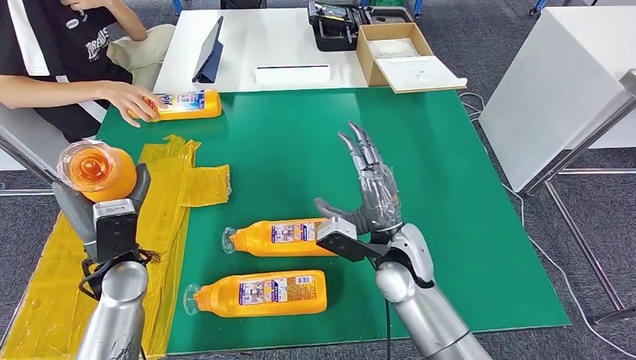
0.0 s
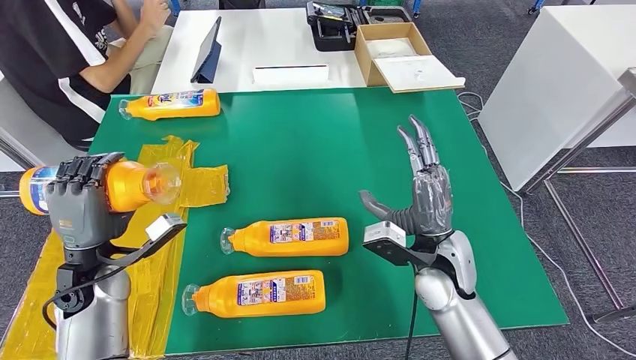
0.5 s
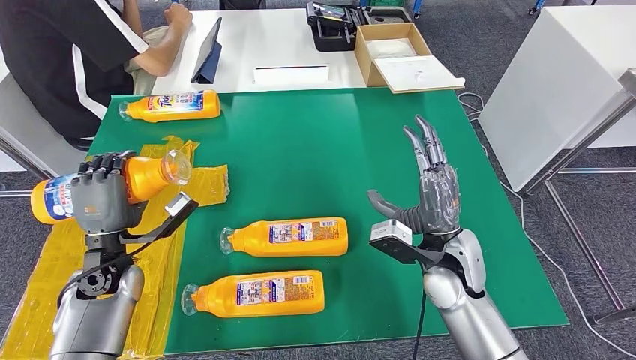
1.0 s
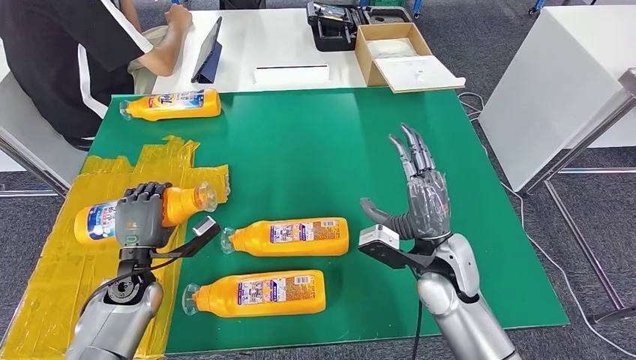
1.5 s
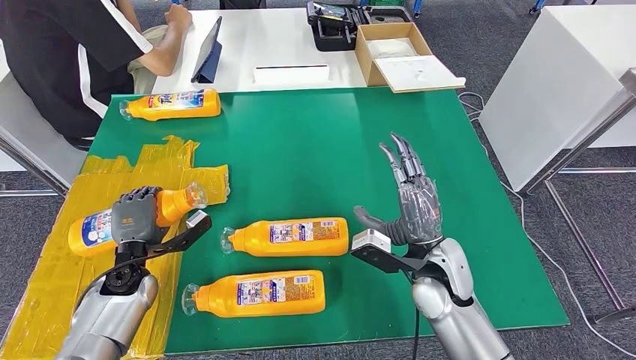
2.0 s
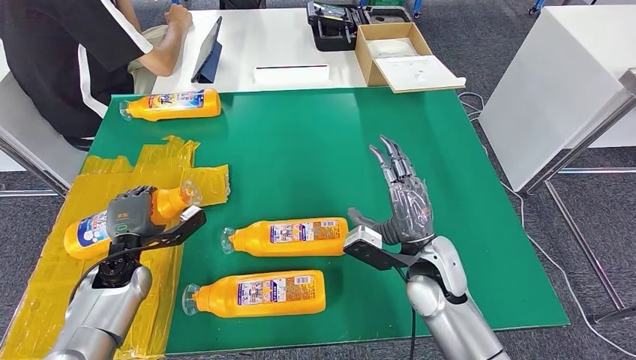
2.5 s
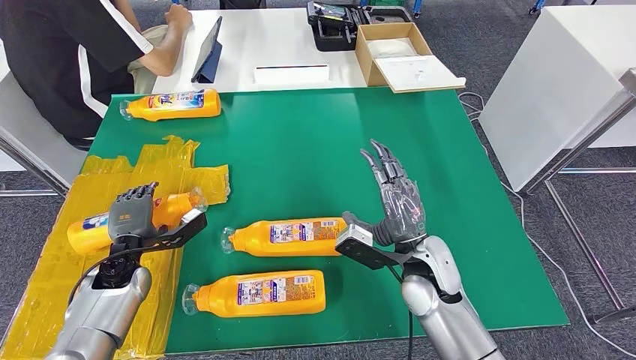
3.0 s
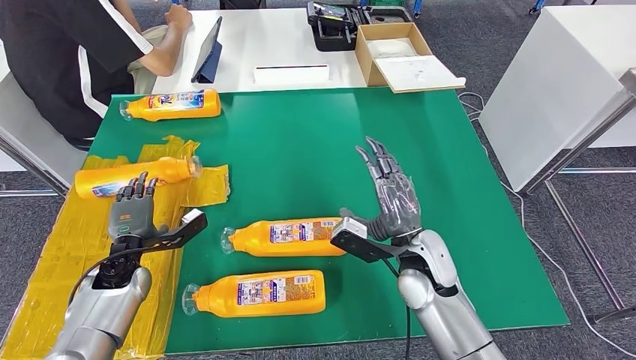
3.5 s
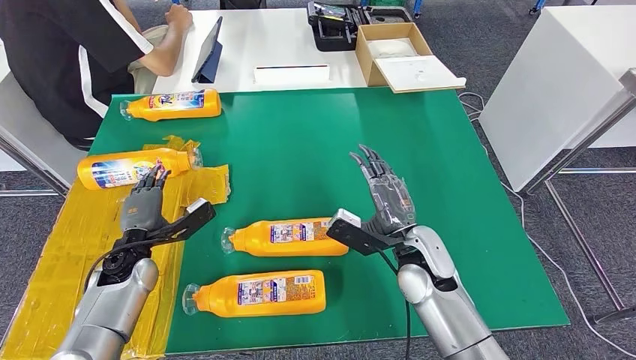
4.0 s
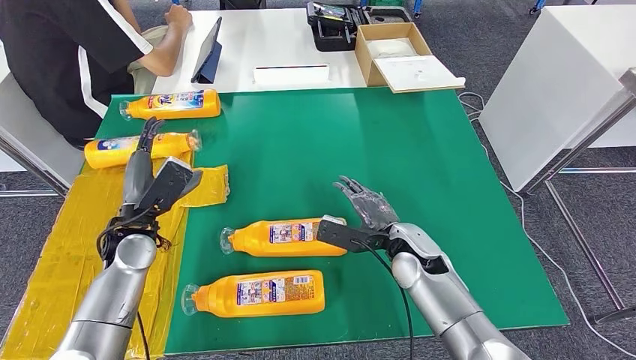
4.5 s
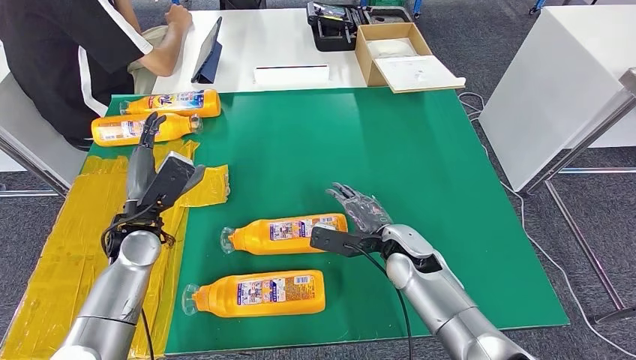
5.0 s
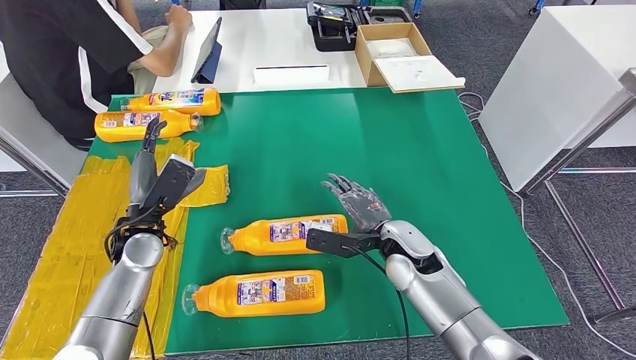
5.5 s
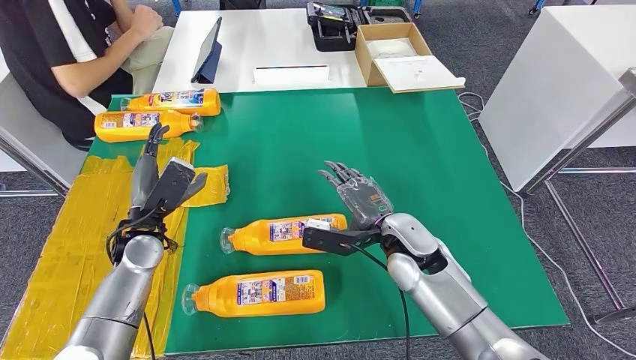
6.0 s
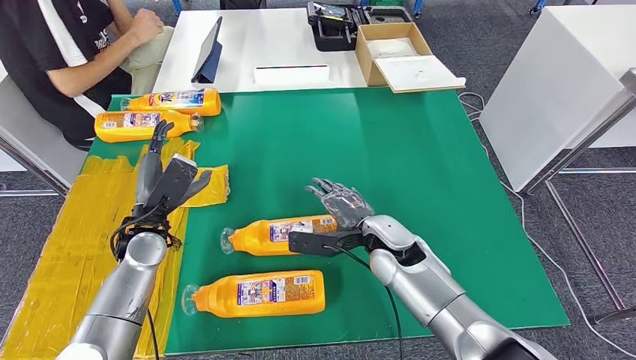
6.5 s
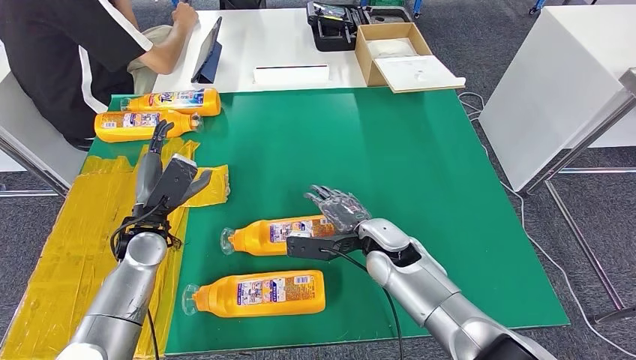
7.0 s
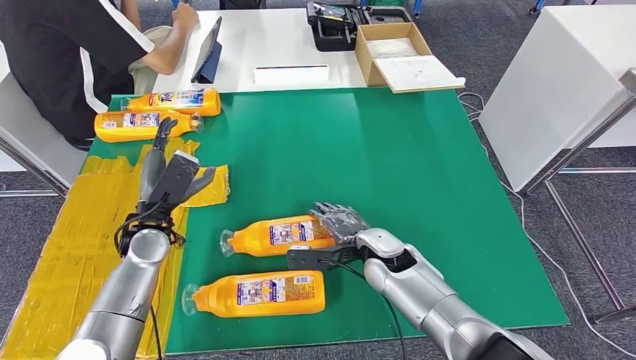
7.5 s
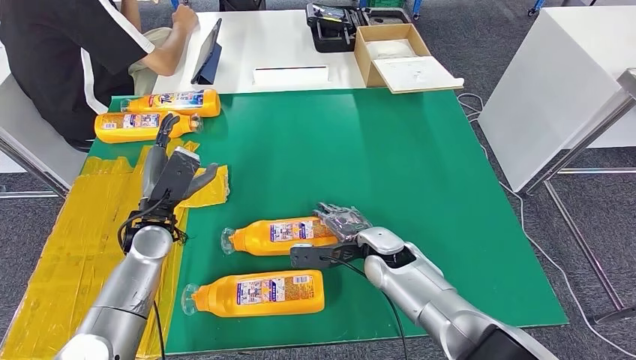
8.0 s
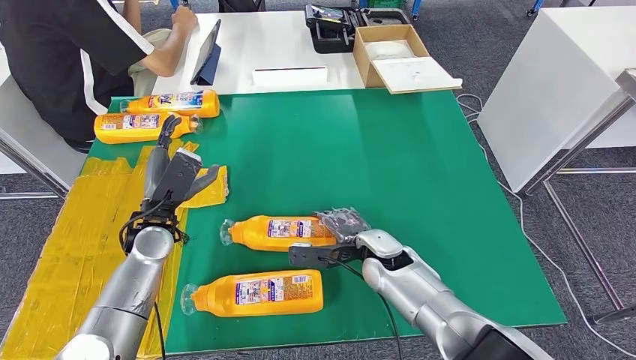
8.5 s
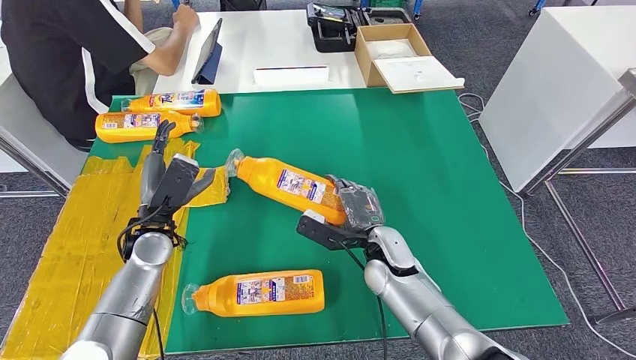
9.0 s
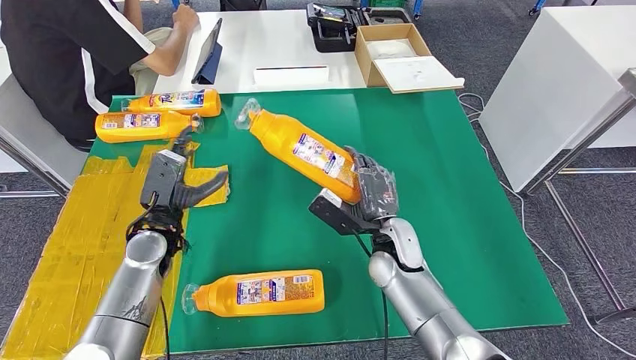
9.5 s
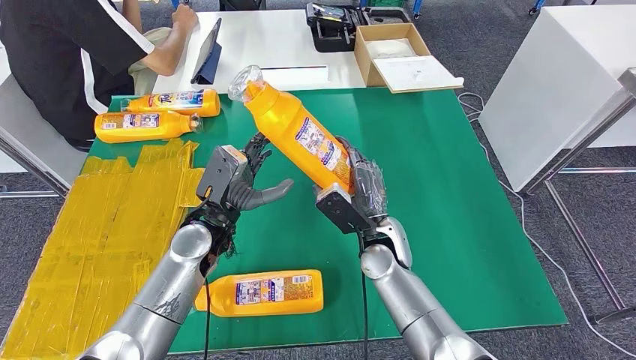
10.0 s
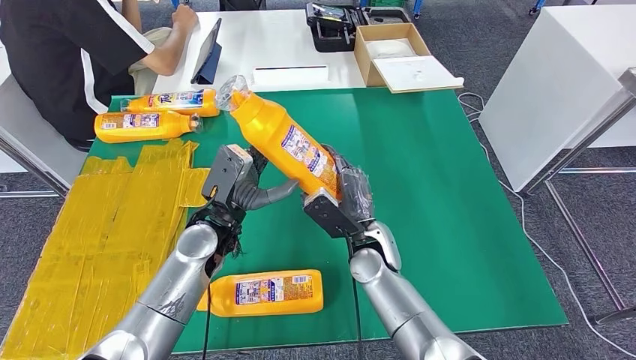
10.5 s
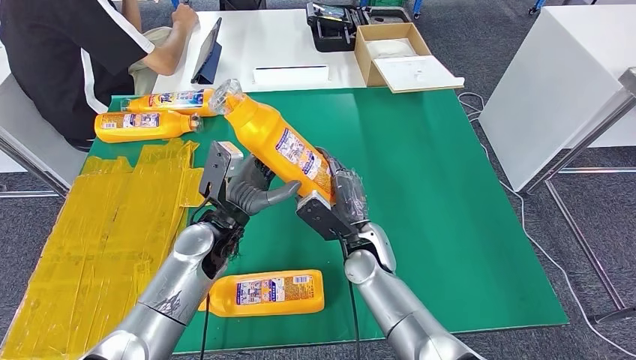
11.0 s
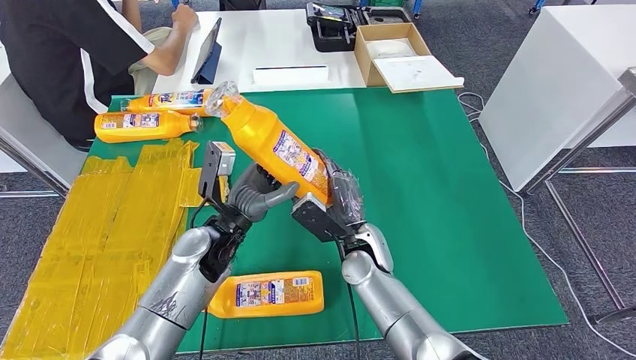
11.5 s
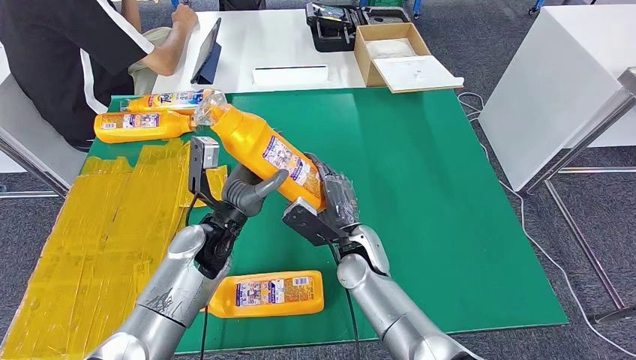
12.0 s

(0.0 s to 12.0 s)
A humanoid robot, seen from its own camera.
Step, 0.0 s - 3.5 s: Flip the fast-moving consumer goods bottle to the front side.
4.0 s - 6.0 s: The left hand shifts by some 5 cm.
6.0 s - 8.0 s: The right hand goes approximately 5 cm downward.
8.0 s - 10.0 s: The left hand goes some 10 cm to the right.

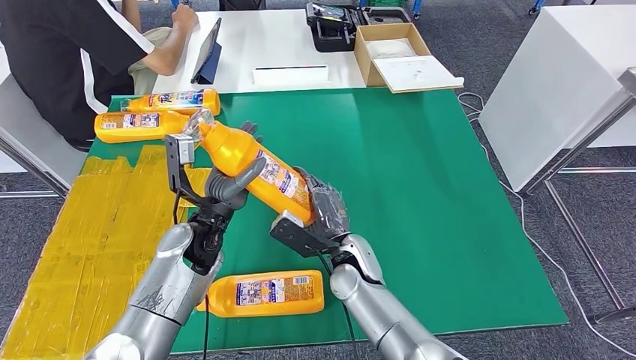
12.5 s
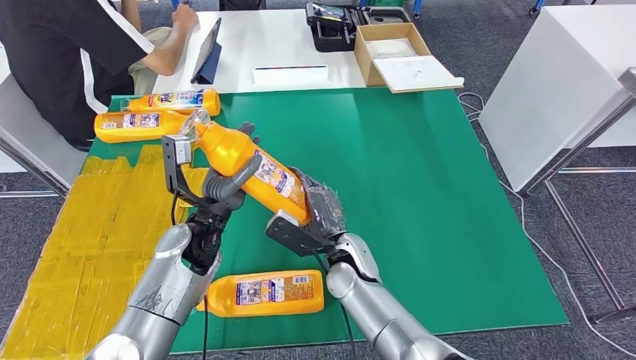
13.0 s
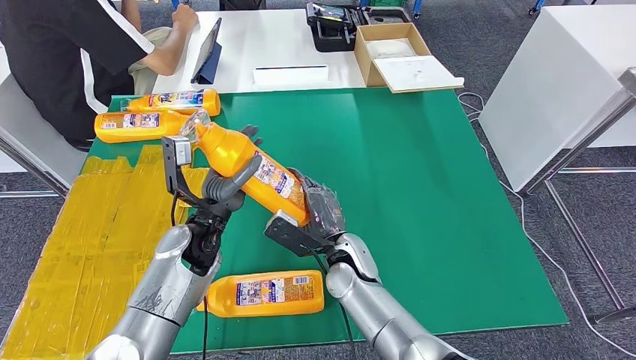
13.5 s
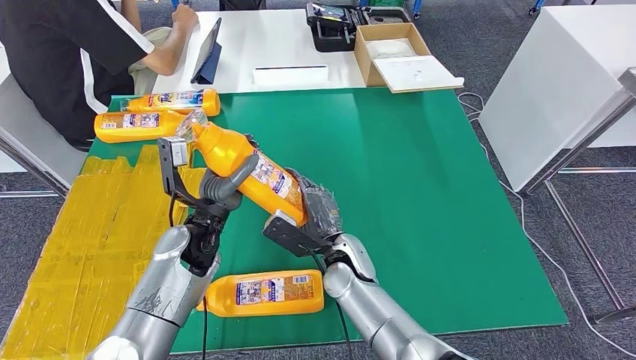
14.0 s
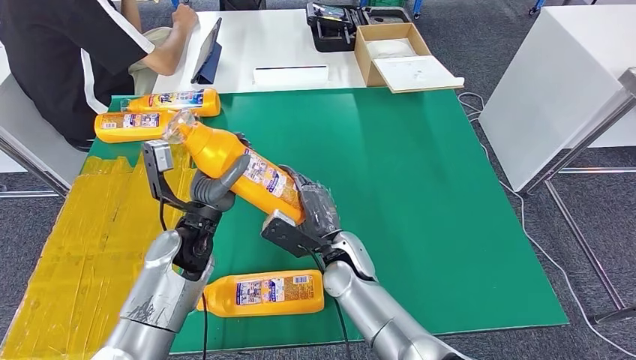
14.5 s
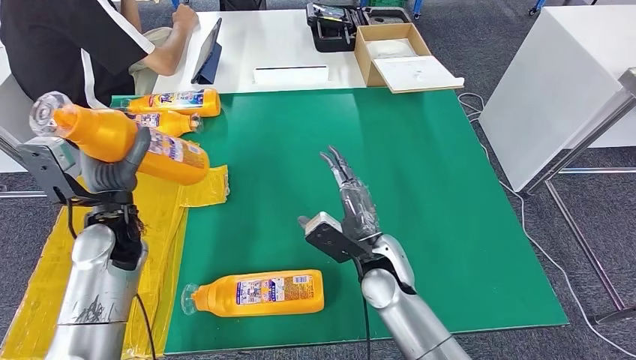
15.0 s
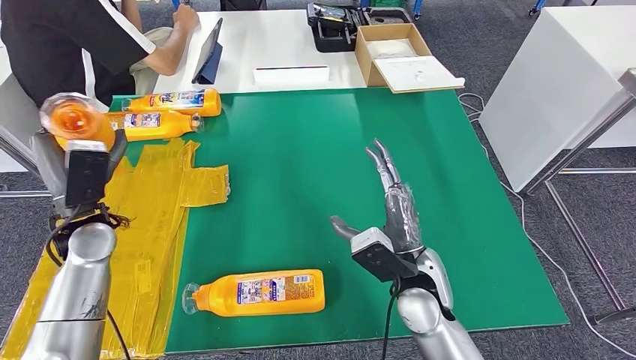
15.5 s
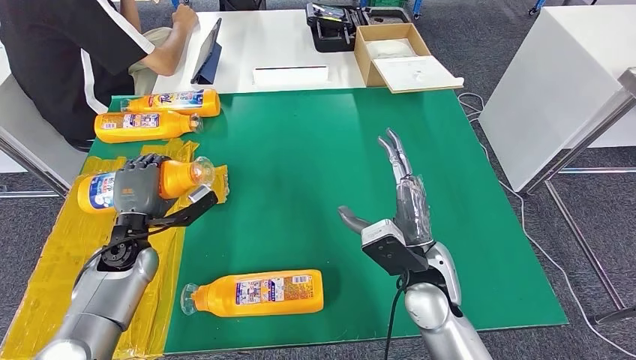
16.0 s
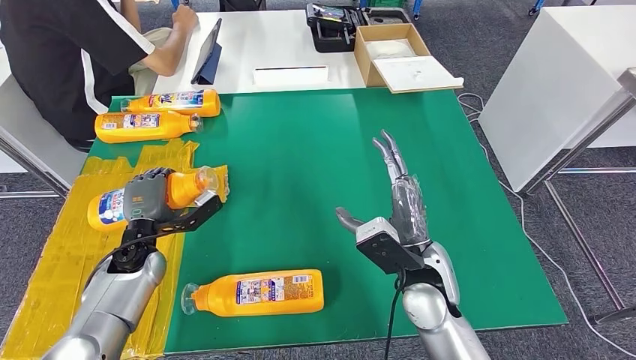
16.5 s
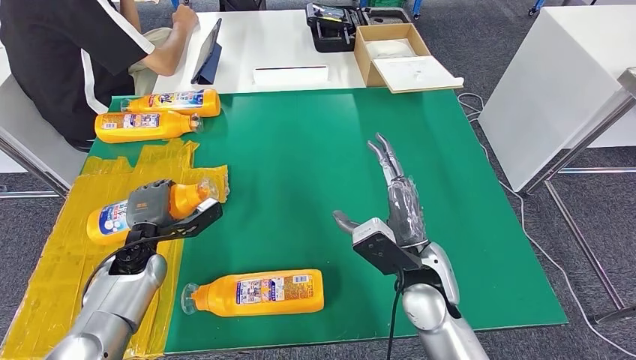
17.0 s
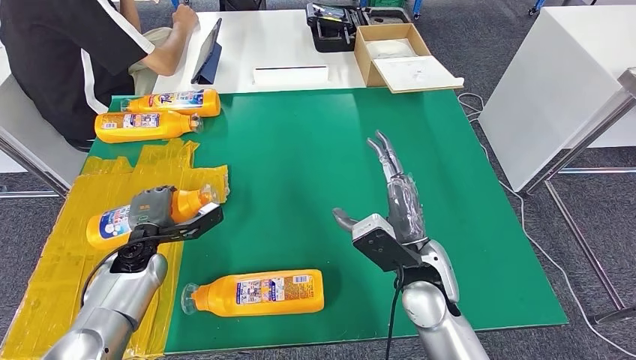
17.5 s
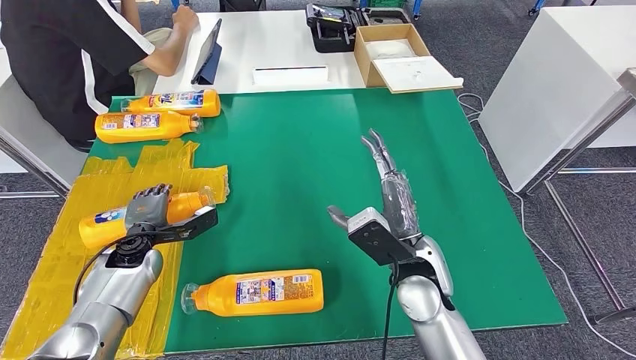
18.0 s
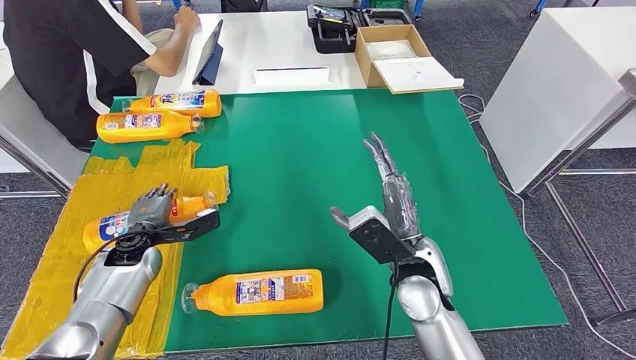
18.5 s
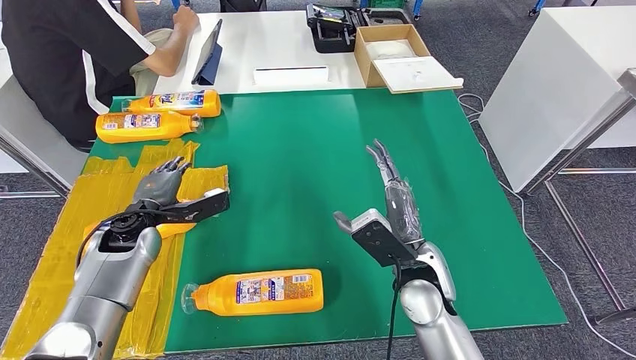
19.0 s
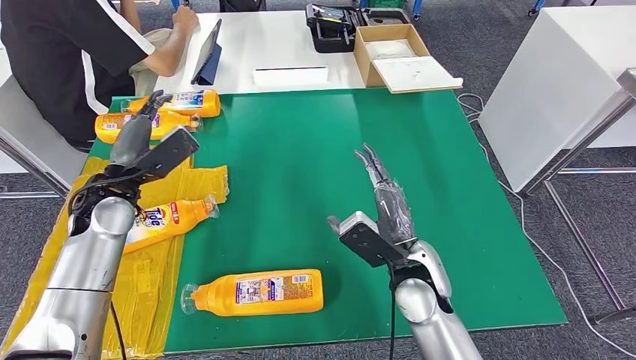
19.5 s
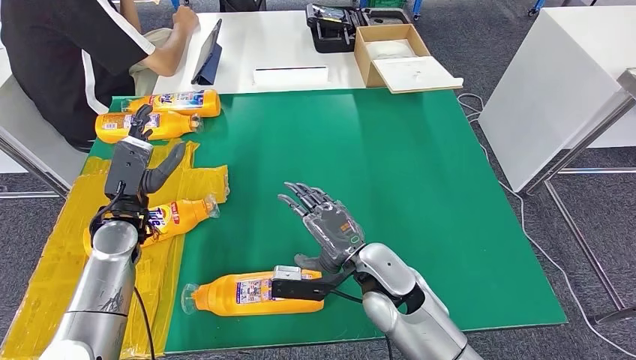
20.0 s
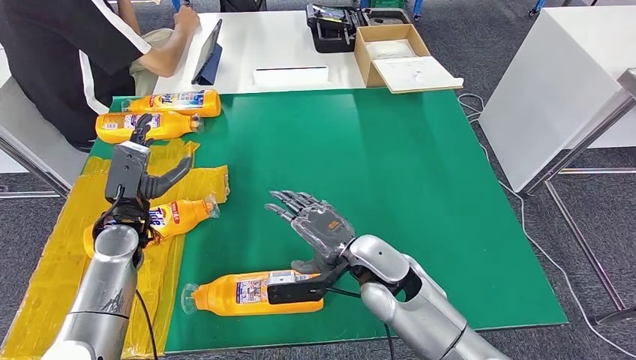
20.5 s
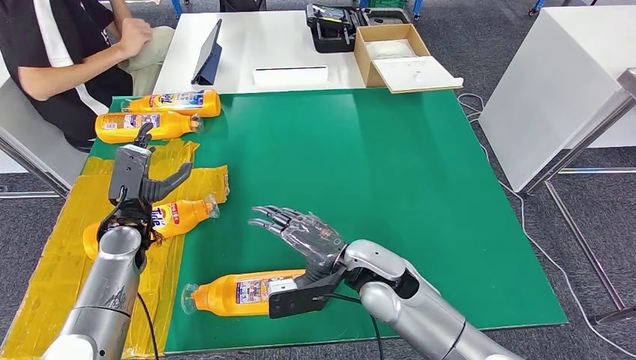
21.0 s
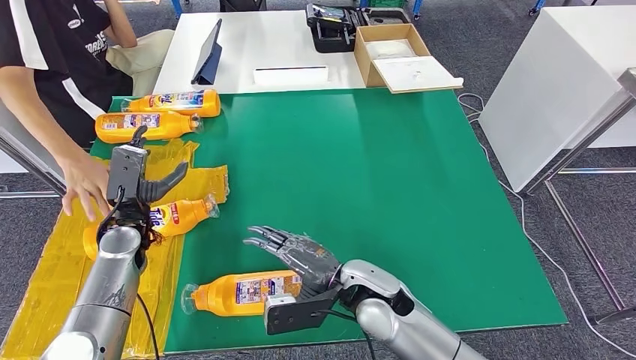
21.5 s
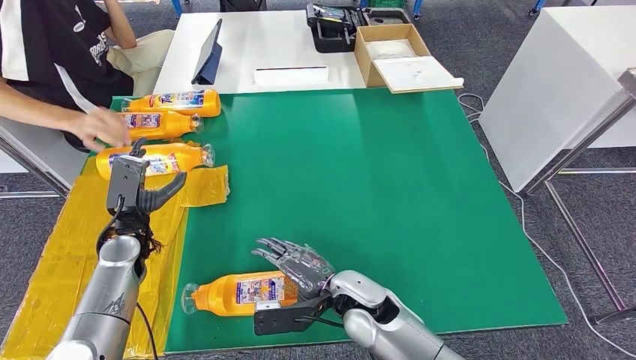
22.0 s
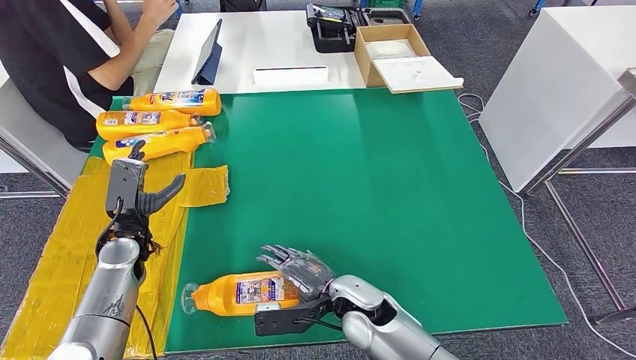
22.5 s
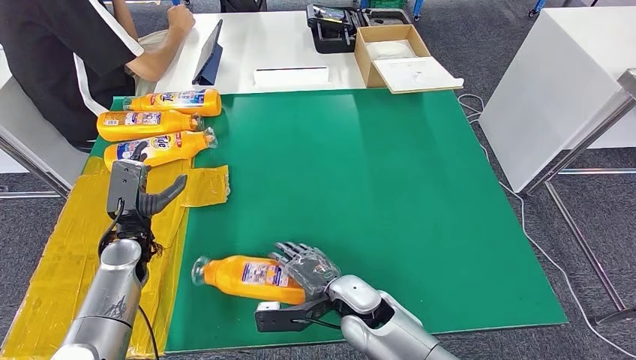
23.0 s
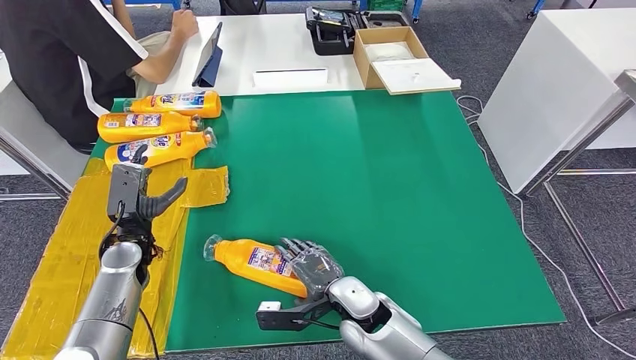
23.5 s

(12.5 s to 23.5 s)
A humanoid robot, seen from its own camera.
Step, 13.5 s - 18.0 s: Flip the fast-moving consumer goods bottle to the front side.
12.5 s - 14.5 s: The hands move only a little.
14.5 s - 16.0 s: The right hand heads to the right, upward and backward, covering some 15 cm. Meanwhile the left hand heads to the left, covering roughly 15 cm.
18.0 s - 20.0 s: The left hand is displaced upward by roughly 10 cm. Meanwhile the right hand moves to the left, approximately 5 cm.
